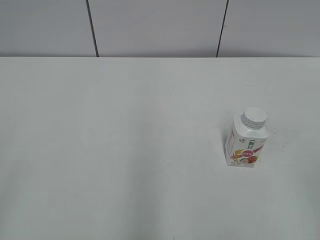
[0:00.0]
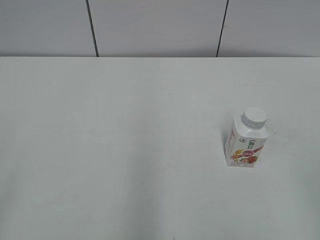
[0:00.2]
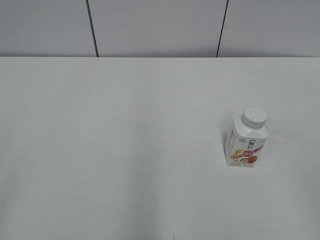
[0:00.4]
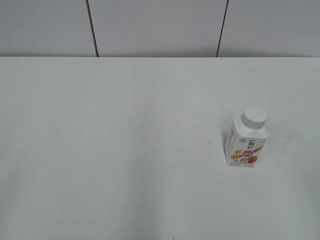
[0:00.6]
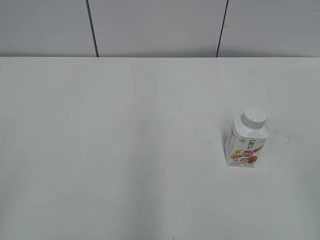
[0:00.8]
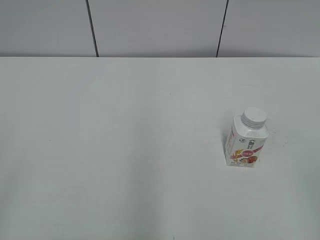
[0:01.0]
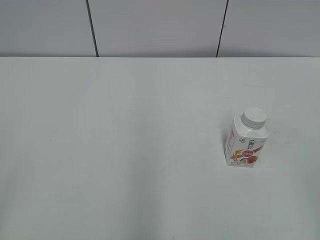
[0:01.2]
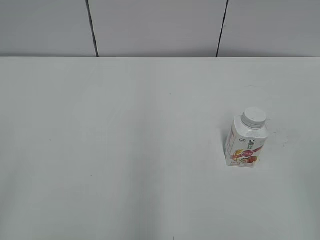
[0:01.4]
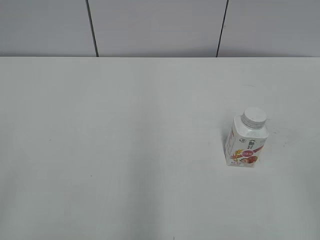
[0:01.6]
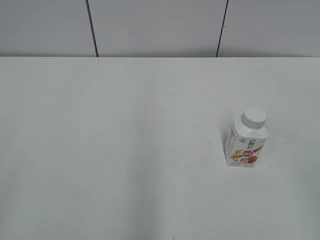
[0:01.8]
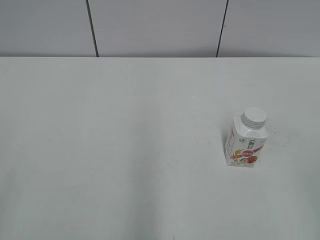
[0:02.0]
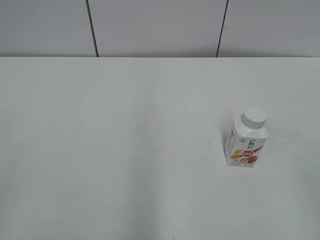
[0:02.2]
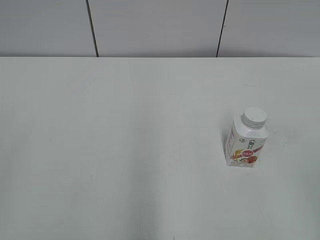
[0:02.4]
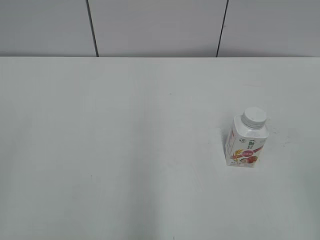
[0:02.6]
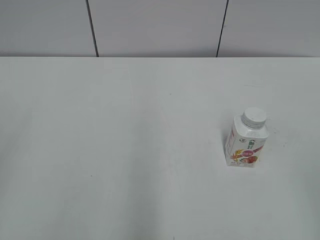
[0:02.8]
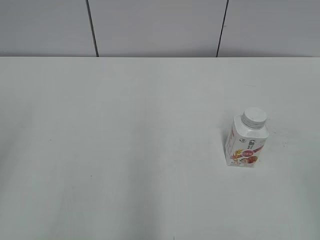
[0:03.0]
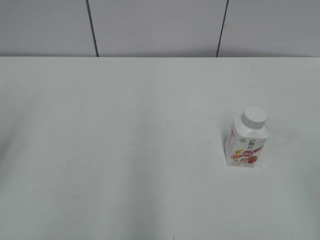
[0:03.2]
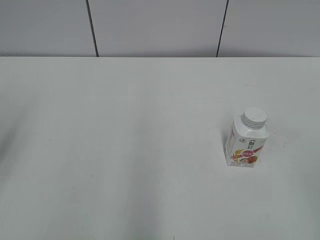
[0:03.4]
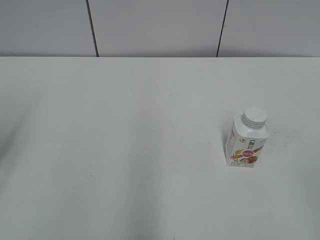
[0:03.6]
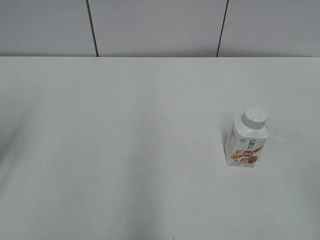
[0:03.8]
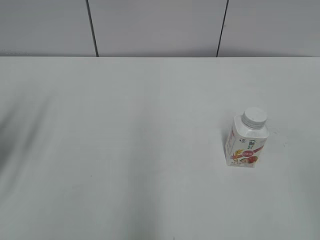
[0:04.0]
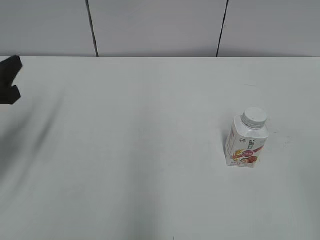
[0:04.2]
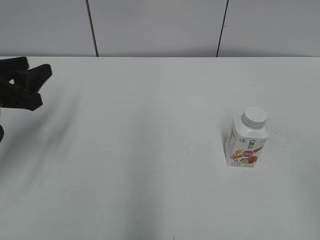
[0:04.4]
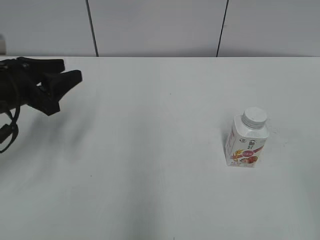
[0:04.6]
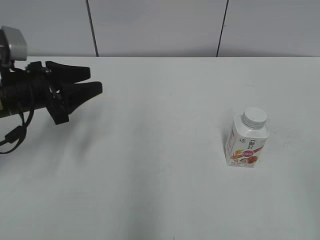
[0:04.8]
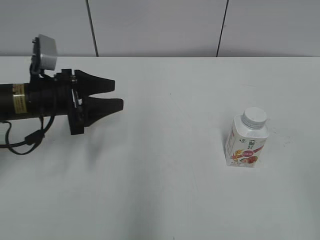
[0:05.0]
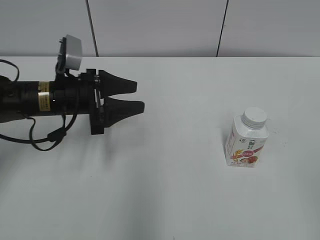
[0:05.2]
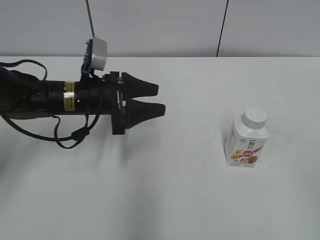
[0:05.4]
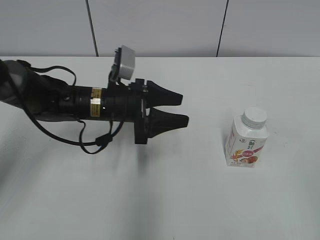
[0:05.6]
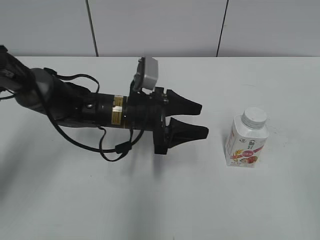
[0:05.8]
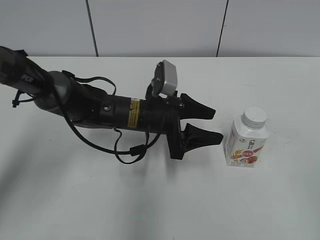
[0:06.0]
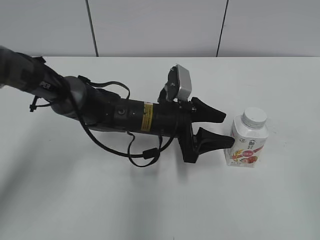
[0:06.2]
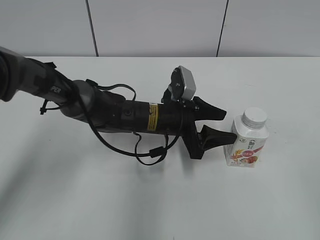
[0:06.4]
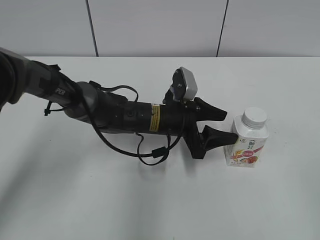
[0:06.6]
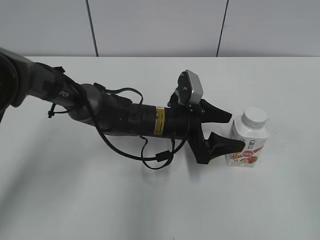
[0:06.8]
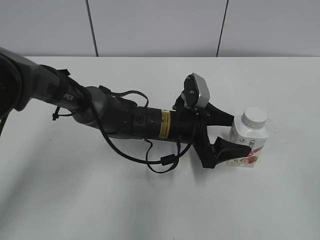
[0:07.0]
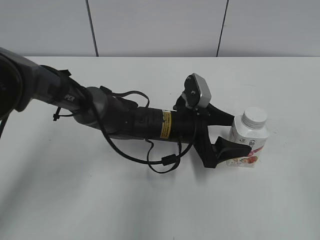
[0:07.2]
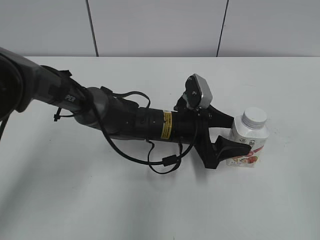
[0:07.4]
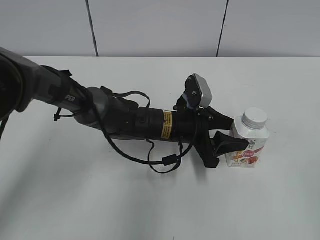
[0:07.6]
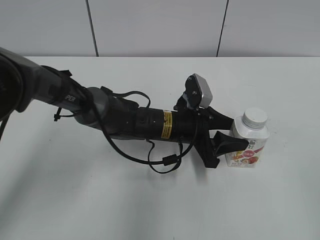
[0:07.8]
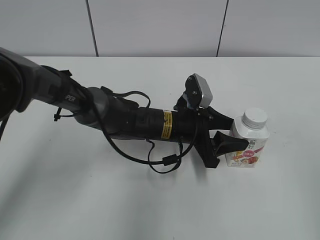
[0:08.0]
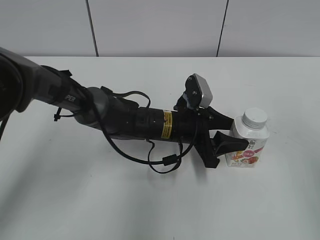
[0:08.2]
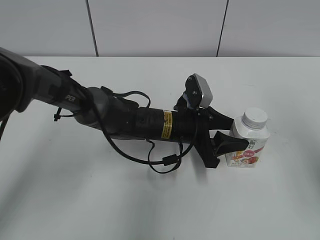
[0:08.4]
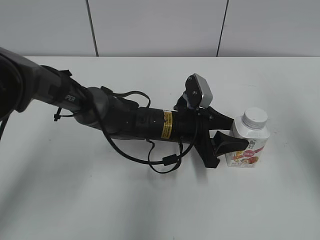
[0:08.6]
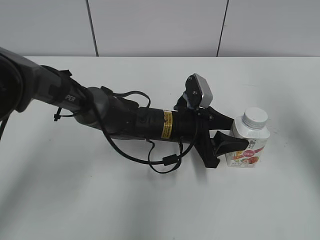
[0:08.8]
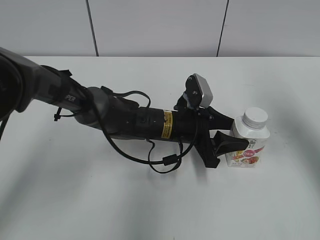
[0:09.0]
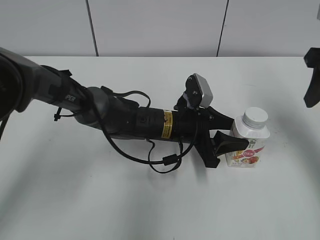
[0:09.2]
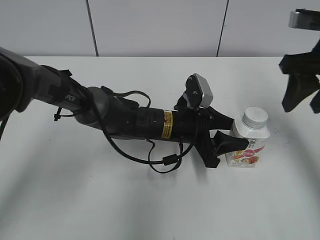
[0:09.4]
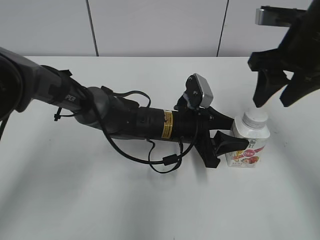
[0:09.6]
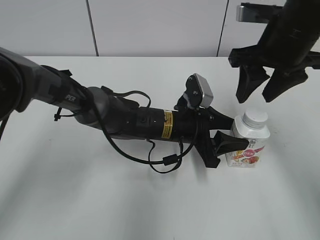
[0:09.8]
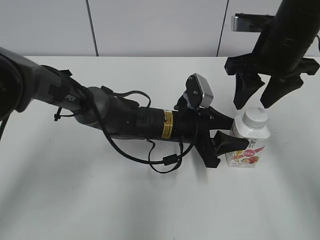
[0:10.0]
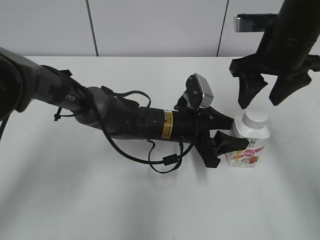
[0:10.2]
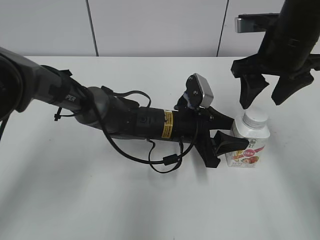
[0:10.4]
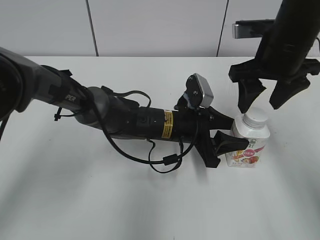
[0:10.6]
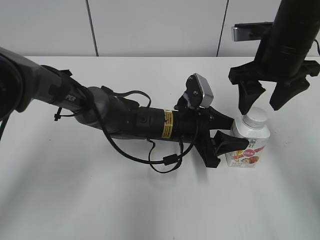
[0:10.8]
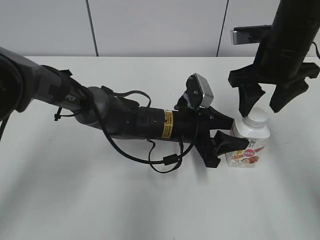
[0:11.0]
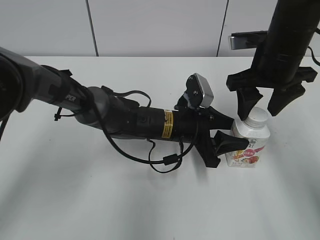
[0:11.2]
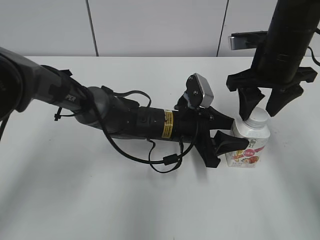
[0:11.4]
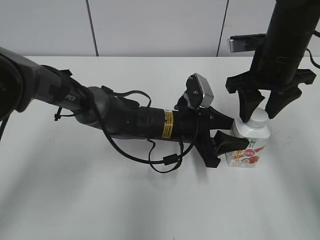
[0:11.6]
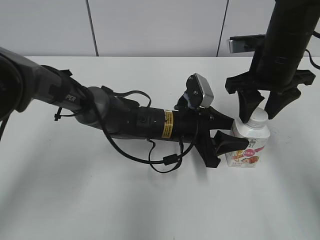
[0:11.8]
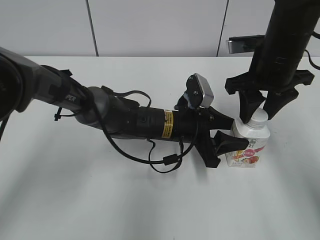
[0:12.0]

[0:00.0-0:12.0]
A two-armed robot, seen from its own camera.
Step, 0:00.0 to 0:08.0: Grab the Yili Changqing with the left hand.
0:03.0 to 0:04.4: The left gripper travels forward and downward by approximately 20 cm.
0:04.4 to 0:06.0: The left gripper moves to the right, about 25 cm.
0:06.0 to 0:07.6: The left gripper heads to the right, covering approximately 5 cm, and opens and closes again.
0:07.6 to 0:09.0: The right gripper heads forward, covering about 30 cm, and closes up.
0:09.0 to 0:10.4: The right gripper is displaced to the left, forward and downward by approximately 15 cm, and opens up.
0:10.4 to 0:12.0: The right gripper closes its fingers.

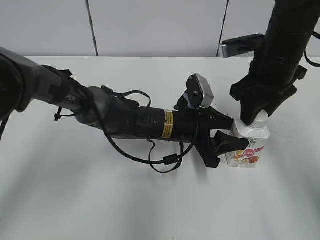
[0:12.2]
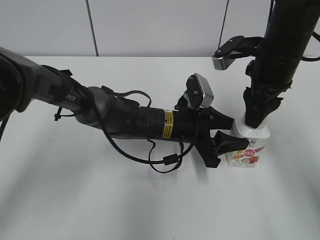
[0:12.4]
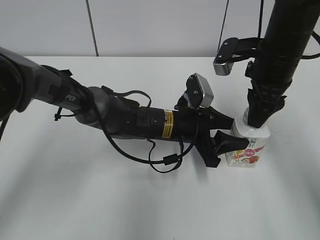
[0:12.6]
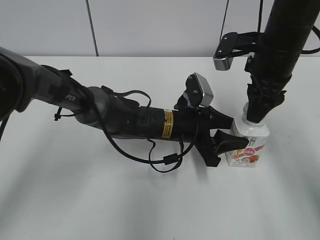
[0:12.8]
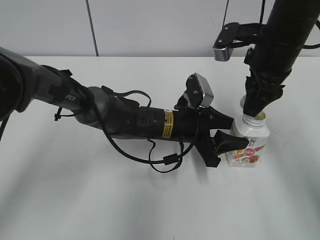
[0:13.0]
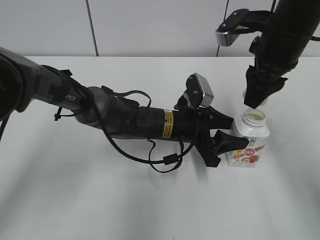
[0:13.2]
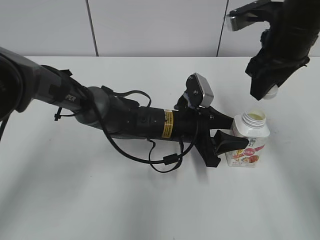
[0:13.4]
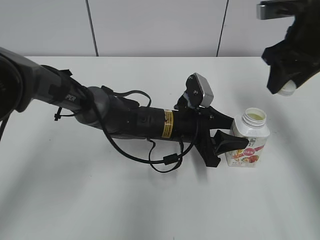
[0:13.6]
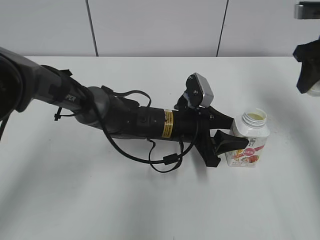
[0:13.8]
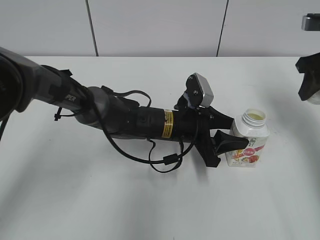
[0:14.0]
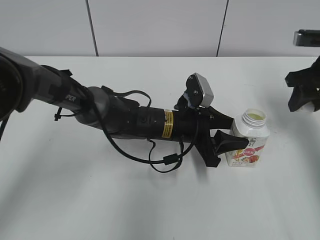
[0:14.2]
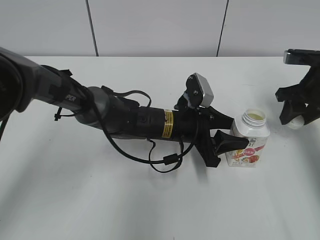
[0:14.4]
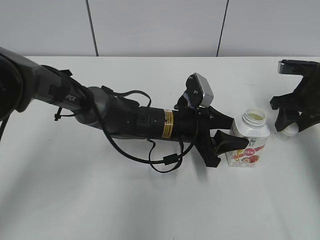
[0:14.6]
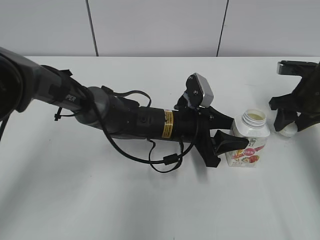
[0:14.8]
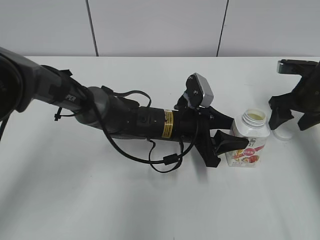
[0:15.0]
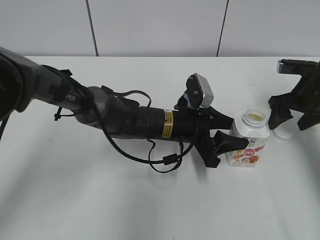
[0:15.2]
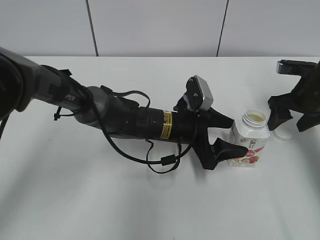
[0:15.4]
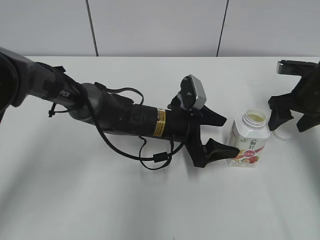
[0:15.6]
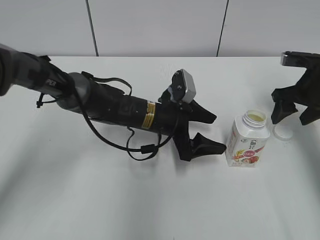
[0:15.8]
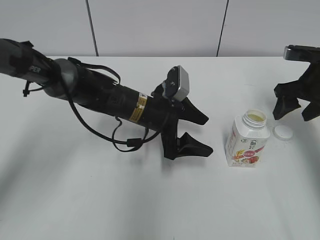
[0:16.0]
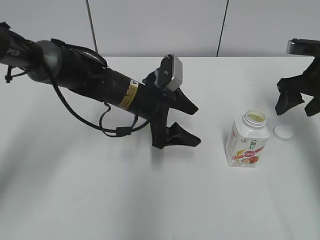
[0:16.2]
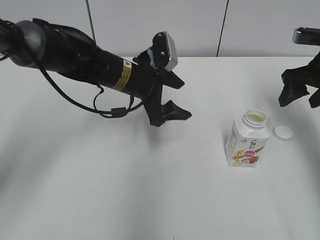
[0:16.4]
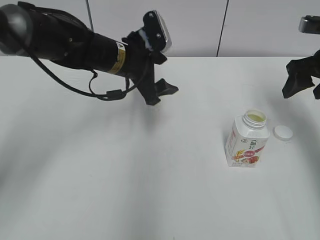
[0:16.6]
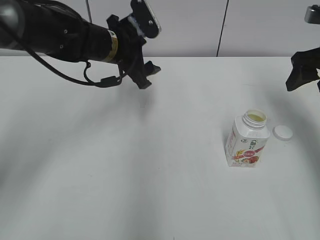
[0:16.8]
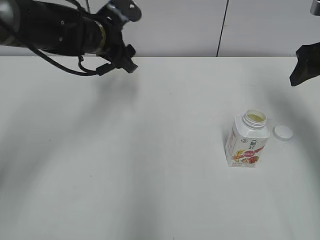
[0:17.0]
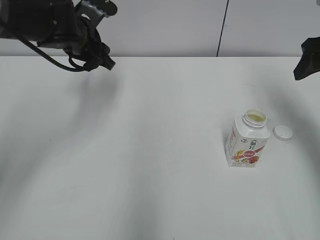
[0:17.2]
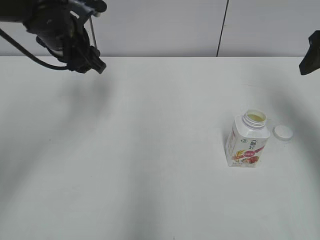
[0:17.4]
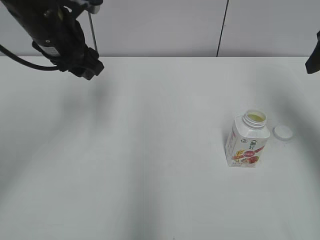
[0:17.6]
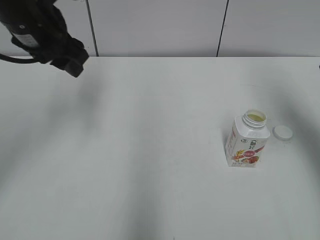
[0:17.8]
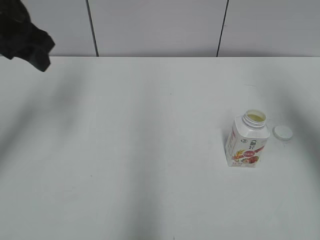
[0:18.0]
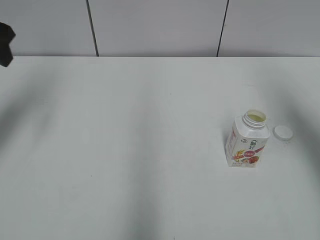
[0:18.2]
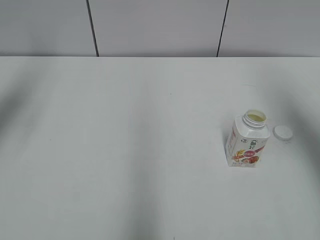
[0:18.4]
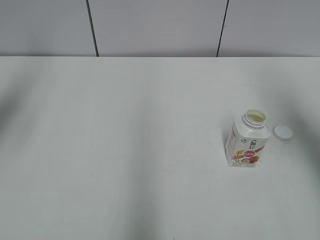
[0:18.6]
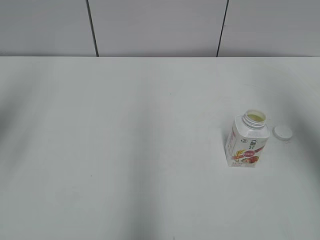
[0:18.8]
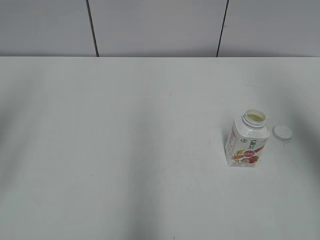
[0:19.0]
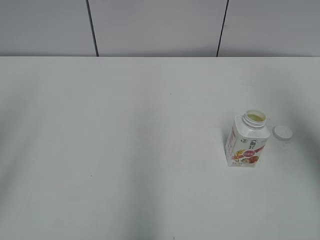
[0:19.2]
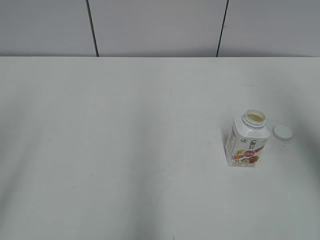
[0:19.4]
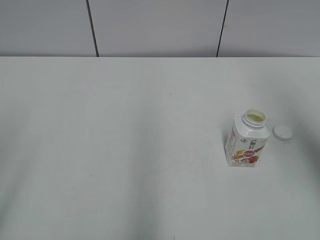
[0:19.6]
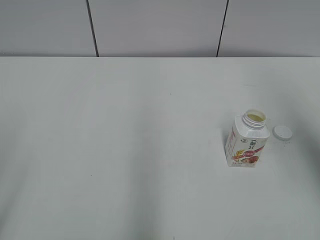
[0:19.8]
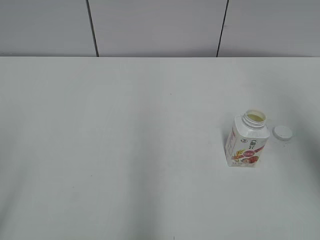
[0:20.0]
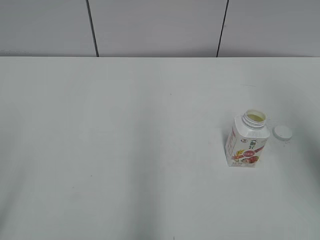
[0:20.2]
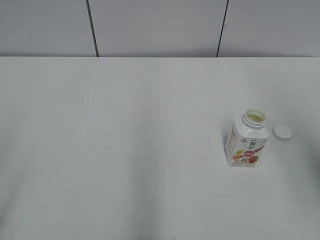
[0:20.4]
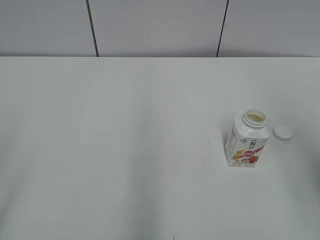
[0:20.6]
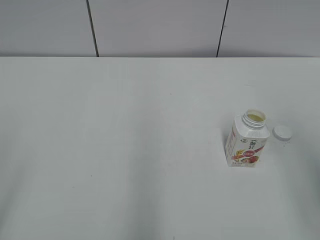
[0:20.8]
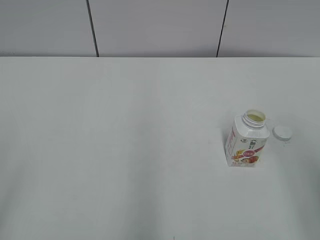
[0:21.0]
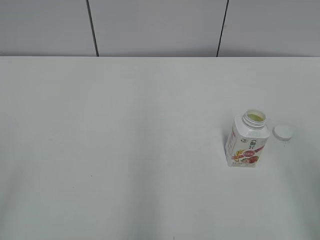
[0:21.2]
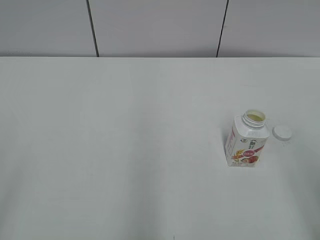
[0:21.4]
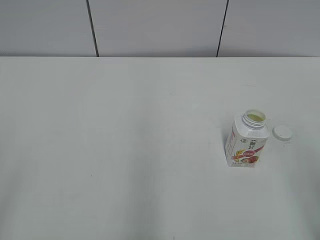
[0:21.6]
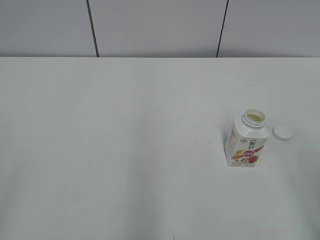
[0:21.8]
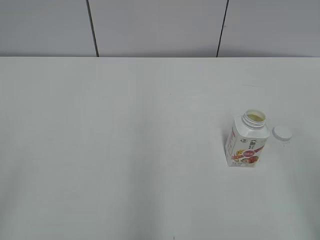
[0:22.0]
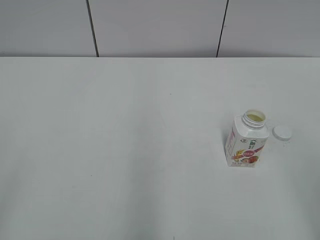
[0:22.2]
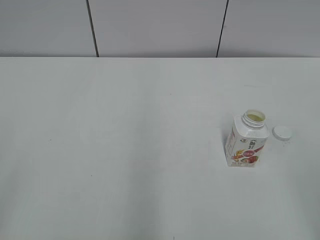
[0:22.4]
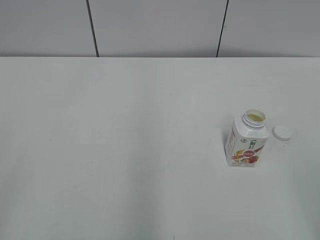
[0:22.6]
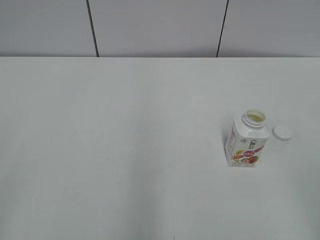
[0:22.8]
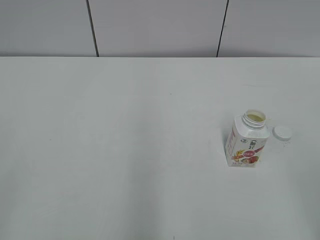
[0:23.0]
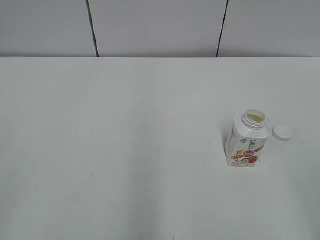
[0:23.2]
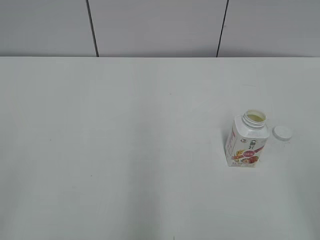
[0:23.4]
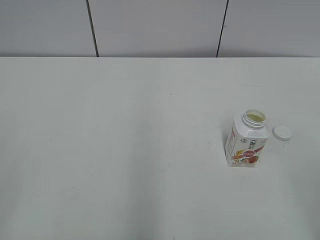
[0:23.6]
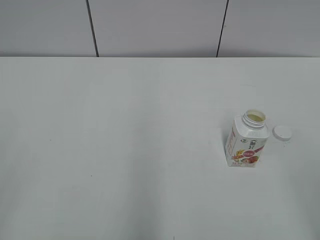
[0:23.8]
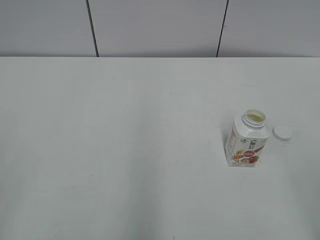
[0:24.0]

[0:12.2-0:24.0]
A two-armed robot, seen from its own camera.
Step, 0:13.2 to 0:14.8: Place the bottle cap on the right.
0:12.2 to 0:13.6: The right gripper changes place by roughly 5 cm.
0:13.6 to 0:15.2: The right gripper moves downward and to the right, some 15 cm, and opens up.
0:15.2 to 0:16.6: The right gripper moves upward, roughly 10 cm. Meanwhile the left gripper is displaced upward, to the left and forward by roughly 15 cm, and opens its fingers.
0:16.6 to 0:18.2: The right gripper is displaced upward and backward by approximately 15 cm. The left gripper shifts roughly 25 cm to the left and upward.
0:18.2 to 0:19.6: The left gripper goes some 25 cm backward.
0:19.6 to 0:21.0: The right gripper travels backward and downward by about 15 cm.
0:22.6 to 0:24.0: Both grippers stay put.
